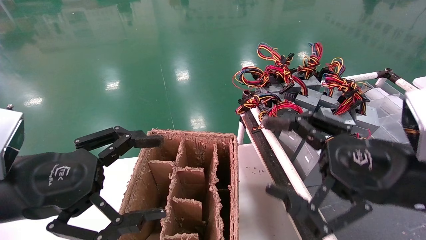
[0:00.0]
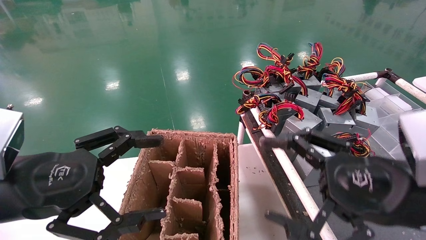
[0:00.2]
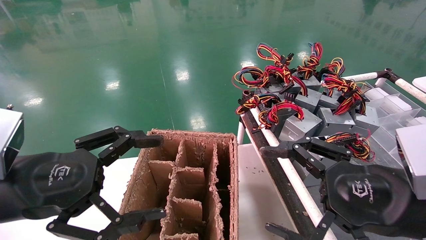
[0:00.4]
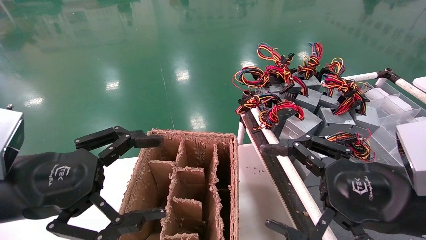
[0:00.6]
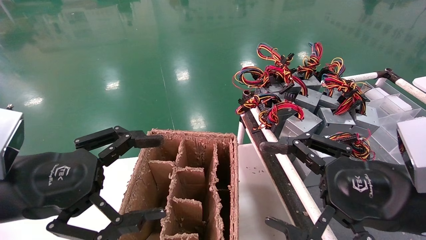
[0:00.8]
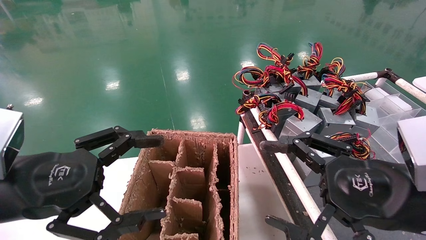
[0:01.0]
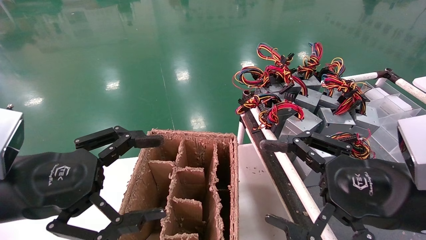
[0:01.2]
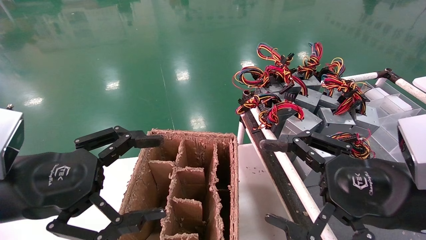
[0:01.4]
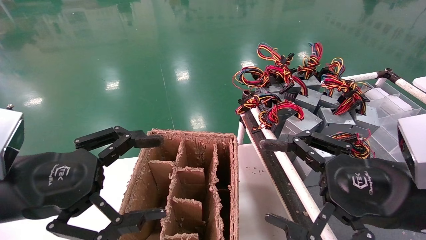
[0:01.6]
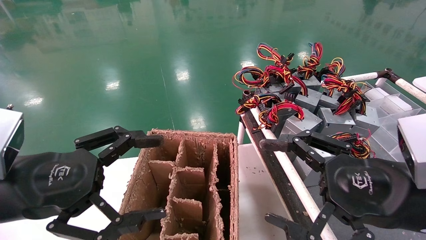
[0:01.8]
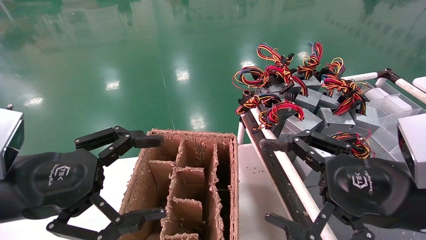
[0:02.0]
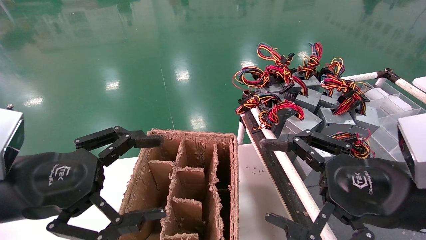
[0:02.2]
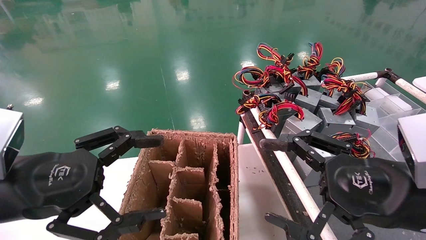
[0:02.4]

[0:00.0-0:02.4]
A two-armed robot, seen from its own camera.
0:00.0 to 0:01.2: The grippers make only small movements.
0:01.2 to 0:02.4: Both grippers stay about where they are.
